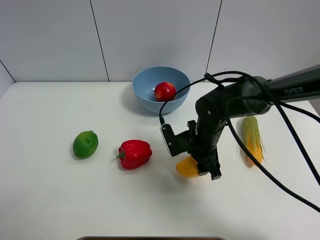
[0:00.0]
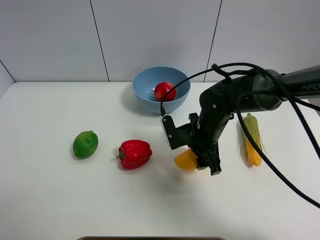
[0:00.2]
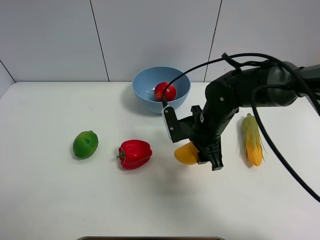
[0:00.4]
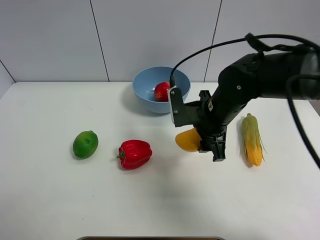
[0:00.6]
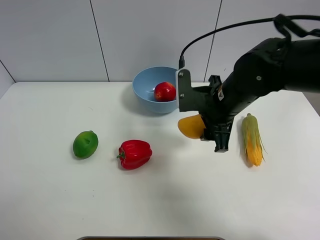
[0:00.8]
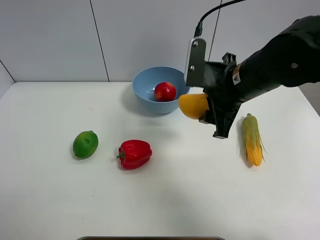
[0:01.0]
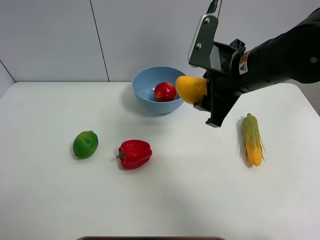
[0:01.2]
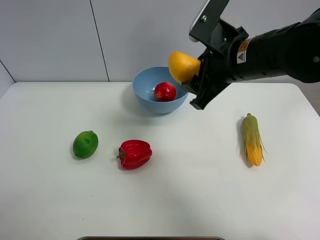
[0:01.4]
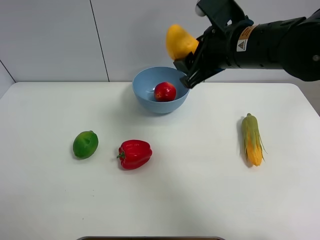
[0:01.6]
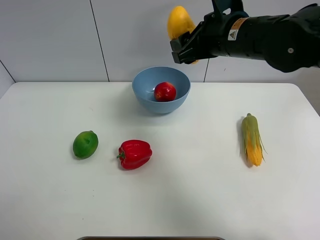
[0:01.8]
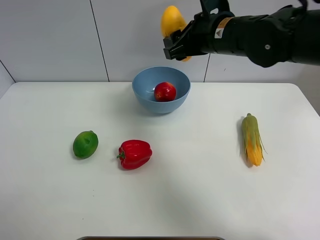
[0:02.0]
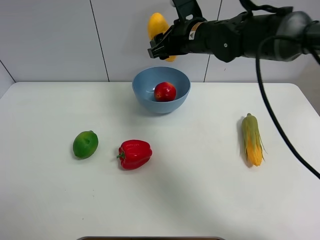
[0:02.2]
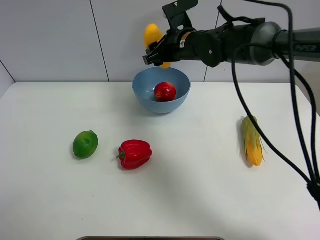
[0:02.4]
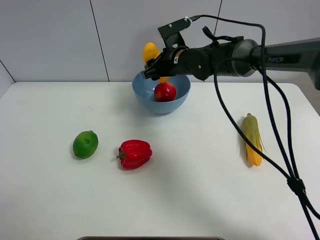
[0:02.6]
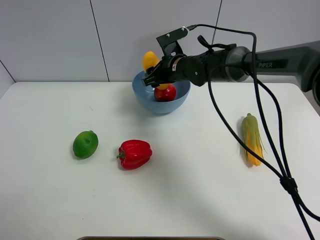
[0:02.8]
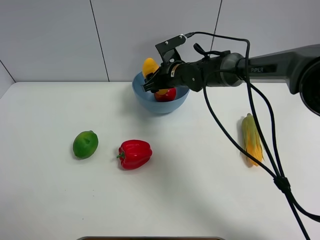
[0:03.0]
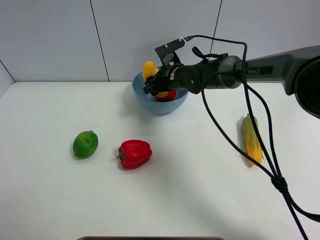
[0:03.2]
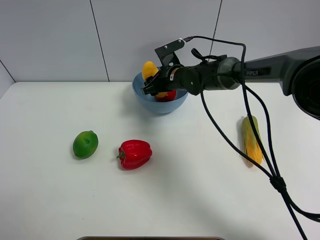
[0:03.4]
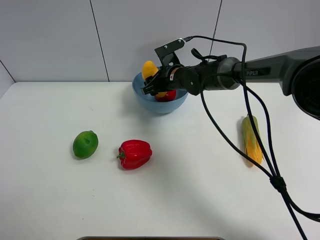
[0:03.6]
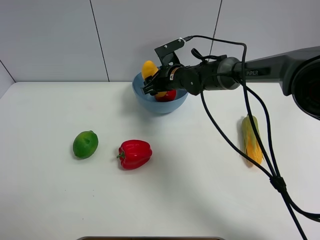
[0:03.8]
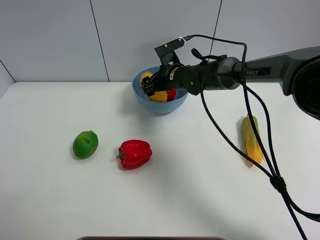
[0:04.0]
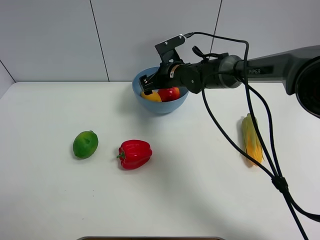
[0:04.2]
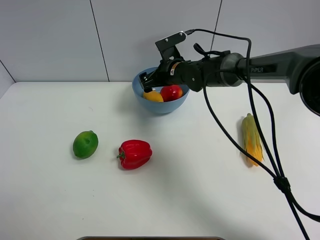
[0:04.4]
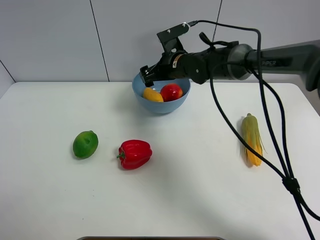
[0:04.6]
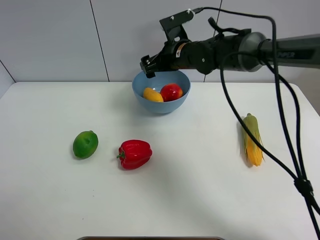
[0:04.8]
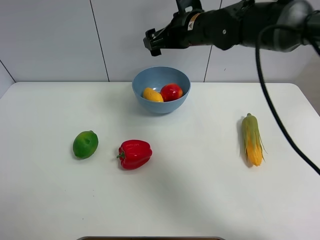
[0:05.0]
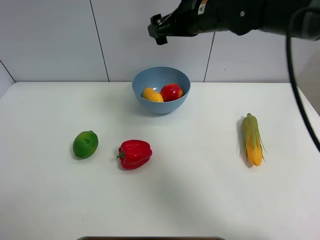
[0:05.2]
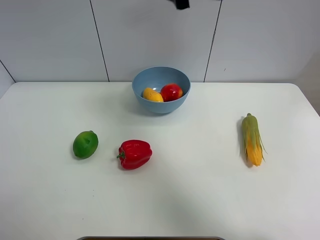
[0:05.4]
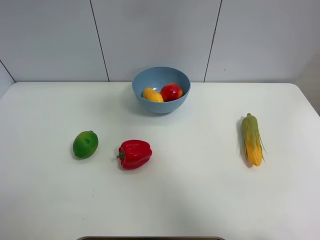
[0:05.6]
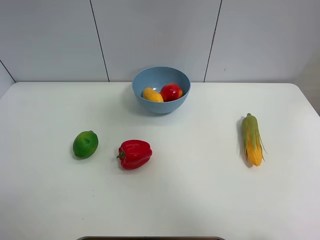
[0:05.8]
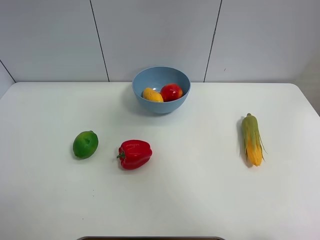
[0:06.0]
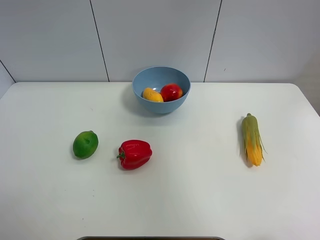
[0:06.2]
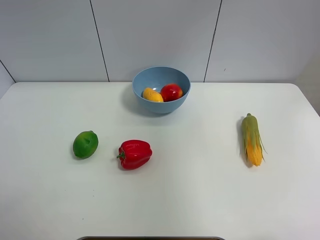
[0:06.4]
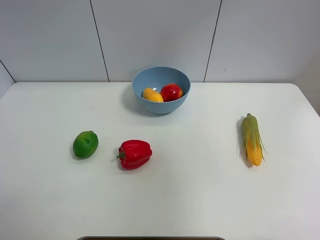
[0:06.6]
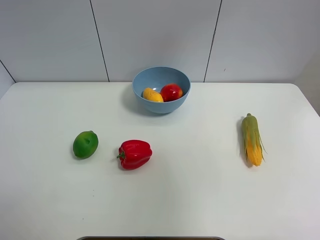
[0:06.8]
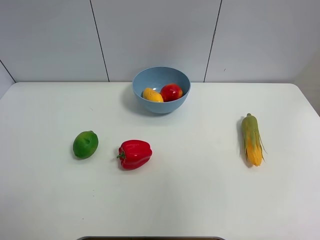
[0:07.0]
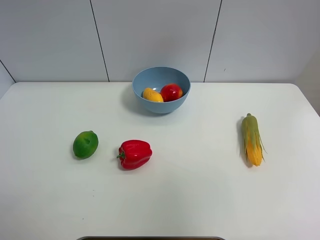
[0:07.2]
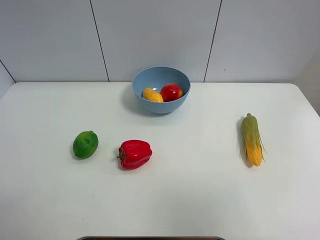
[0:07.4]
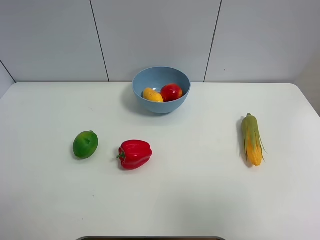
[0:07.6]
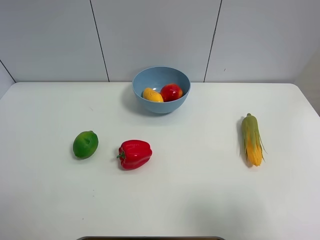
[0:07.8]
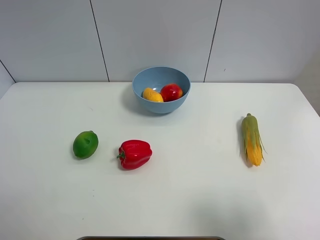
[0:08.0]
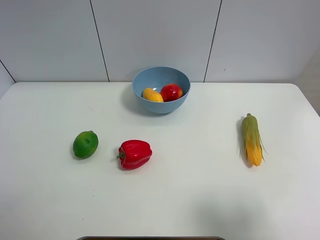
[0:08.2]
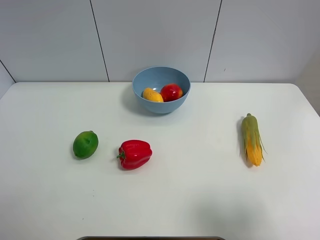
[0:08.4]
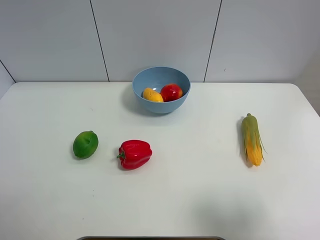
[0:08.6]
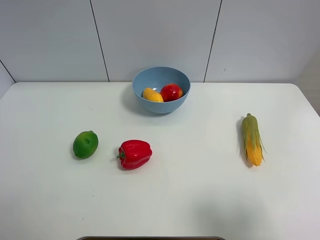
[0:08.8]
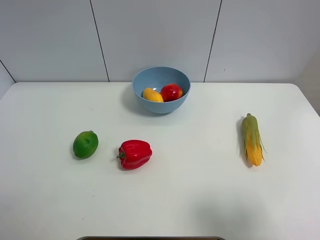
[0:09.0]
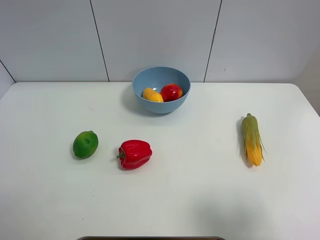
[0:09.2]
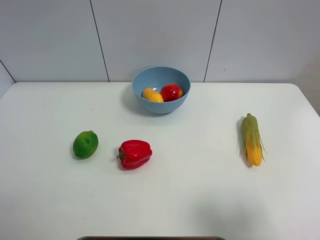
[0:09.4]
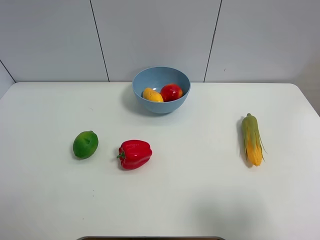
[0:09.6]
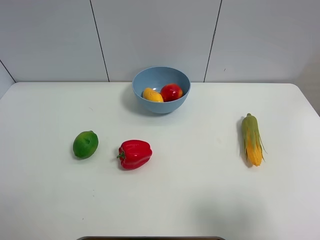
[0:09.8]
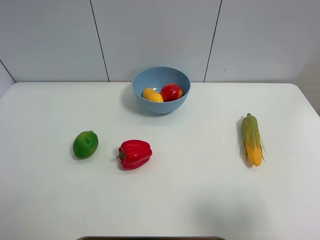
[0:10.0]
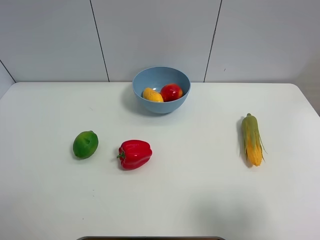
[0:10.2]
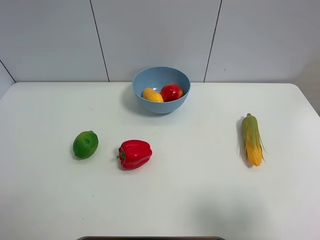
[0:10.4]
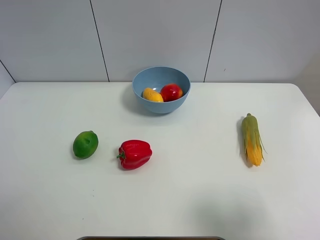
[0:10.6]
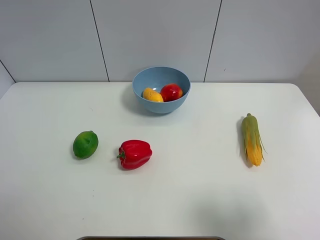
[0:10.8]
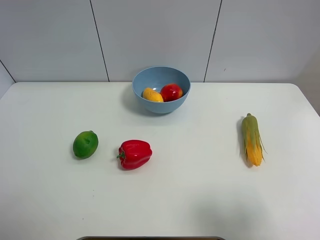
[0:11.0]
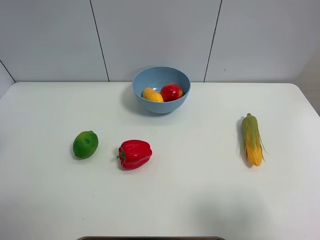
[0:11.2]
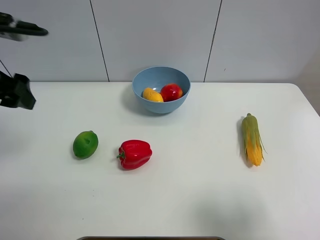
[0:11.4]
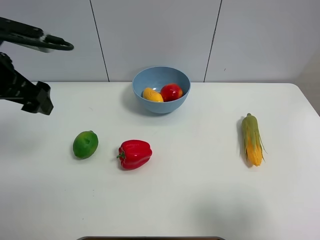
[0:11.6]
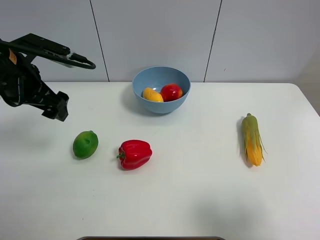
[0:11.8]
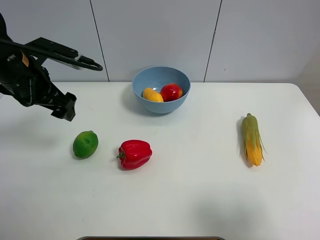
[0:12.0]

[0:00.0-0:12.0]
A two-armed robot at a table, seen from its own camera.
Task of the whole recording: Put the three fruits on the table into a bowl.
Step, 0:00.0 to 0:04.4: Place the mango in the blue bowl with right gripper.
0:00.0 to 0:01.6: The right gripper heads upward, covering approximately 20 cm.
0:01.6 to 0:03.0: The right gripper heads downward, forward and to the left, covering some 25 cm.
0:03.0 to 0:04.4: The right gripper opens its fingers.
0:04.4 to 0:06.0: The right gripper shifts approximately 40 cm upward, backward and to the right.
0:06.0 to 0:07.6: The right gripper heads backward, downward and to the right, covering some 25 cm.
0:07.6 to 0:09.0: The right gripper moves downward, some 10 cm.
0:10.4 to 0:12.0: The left gripper travels forward and to the right by some 30 cm.

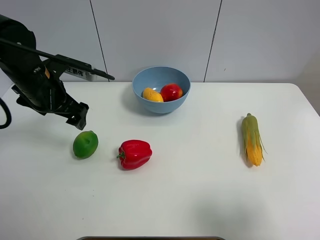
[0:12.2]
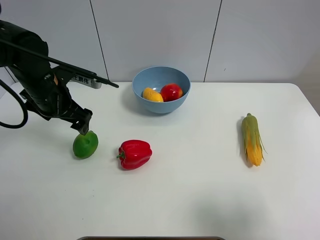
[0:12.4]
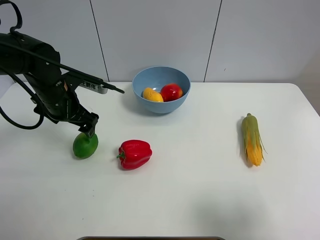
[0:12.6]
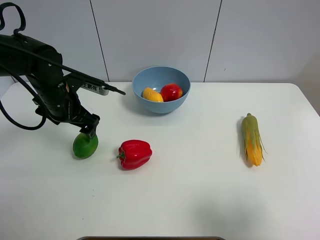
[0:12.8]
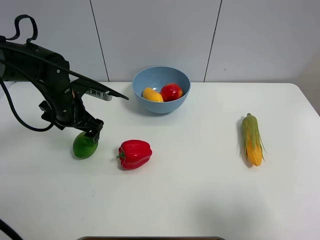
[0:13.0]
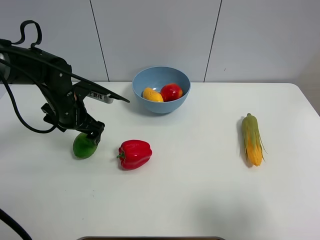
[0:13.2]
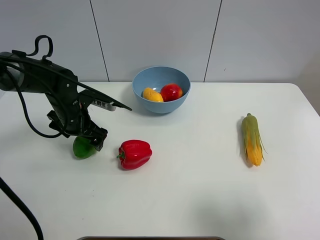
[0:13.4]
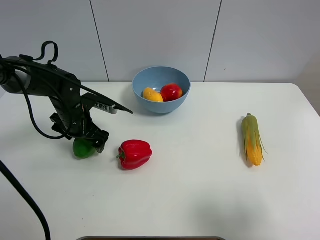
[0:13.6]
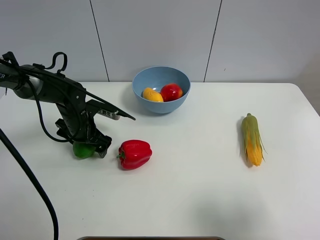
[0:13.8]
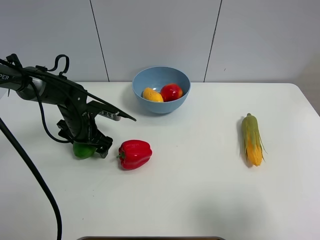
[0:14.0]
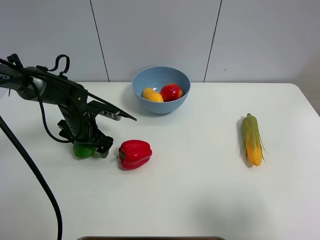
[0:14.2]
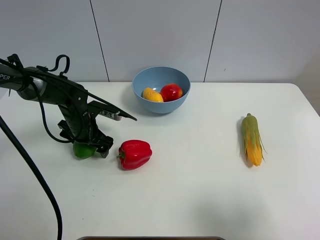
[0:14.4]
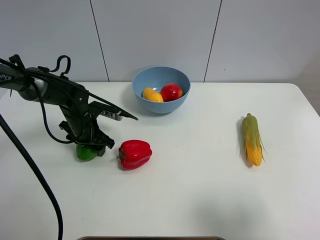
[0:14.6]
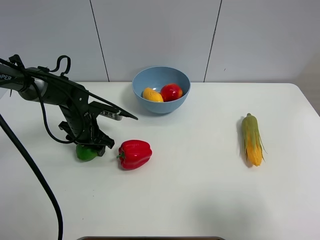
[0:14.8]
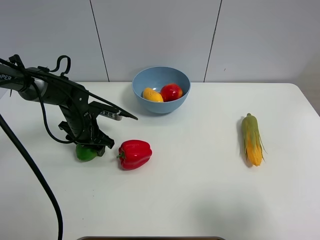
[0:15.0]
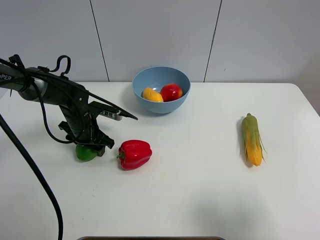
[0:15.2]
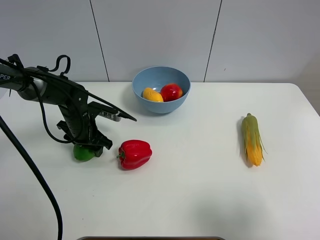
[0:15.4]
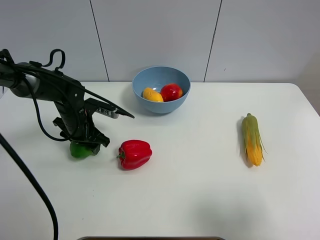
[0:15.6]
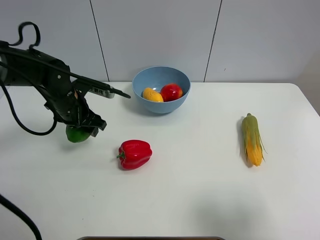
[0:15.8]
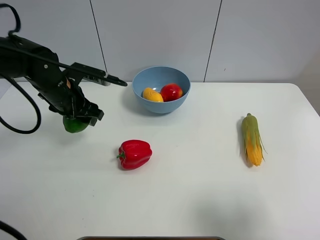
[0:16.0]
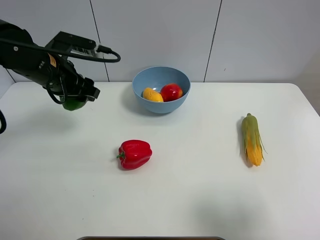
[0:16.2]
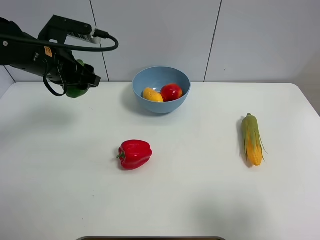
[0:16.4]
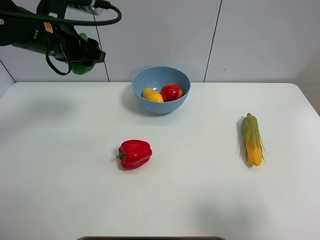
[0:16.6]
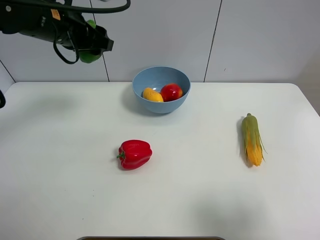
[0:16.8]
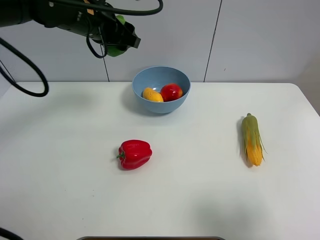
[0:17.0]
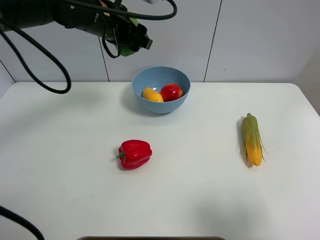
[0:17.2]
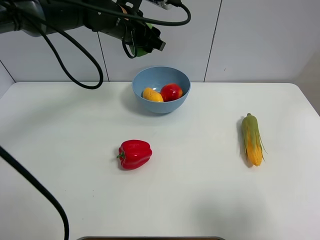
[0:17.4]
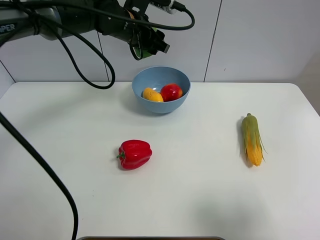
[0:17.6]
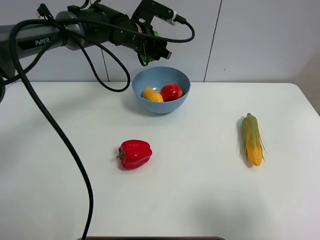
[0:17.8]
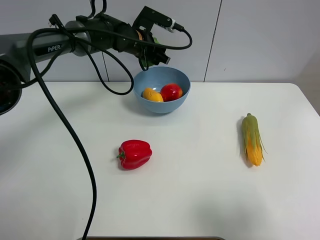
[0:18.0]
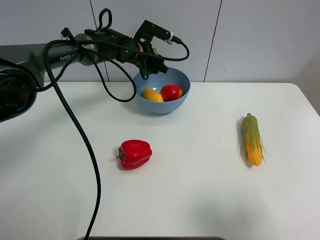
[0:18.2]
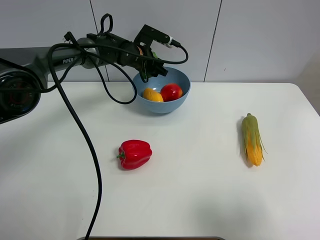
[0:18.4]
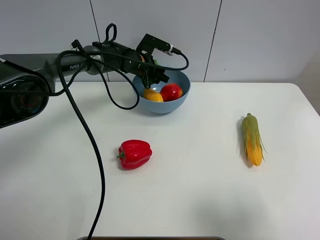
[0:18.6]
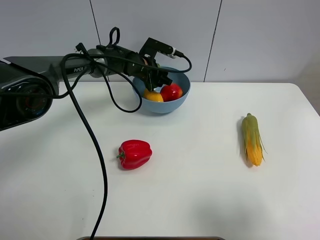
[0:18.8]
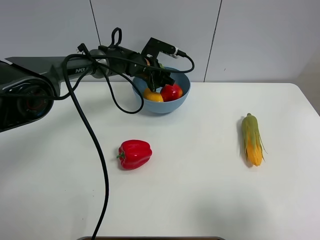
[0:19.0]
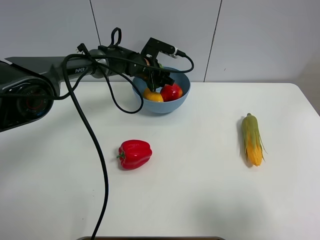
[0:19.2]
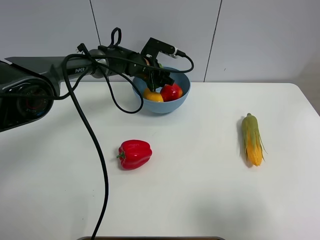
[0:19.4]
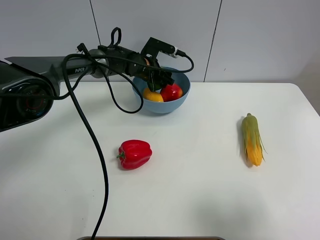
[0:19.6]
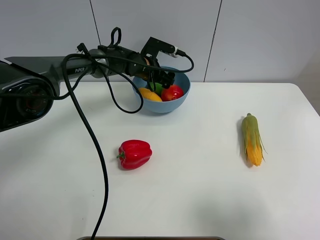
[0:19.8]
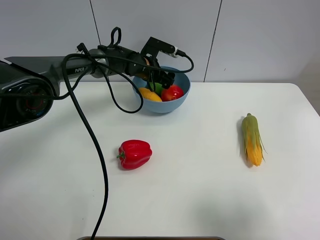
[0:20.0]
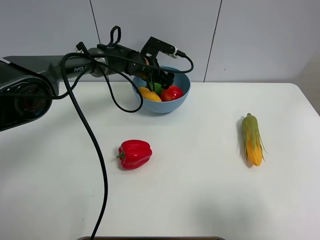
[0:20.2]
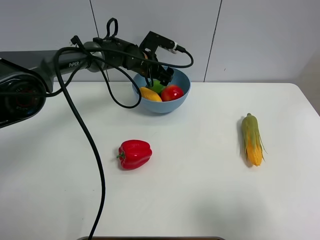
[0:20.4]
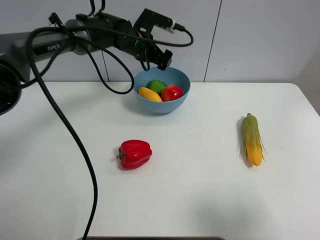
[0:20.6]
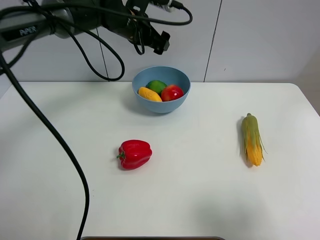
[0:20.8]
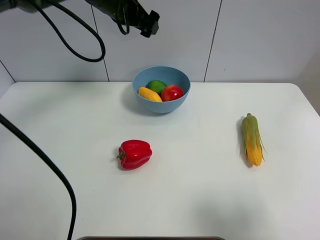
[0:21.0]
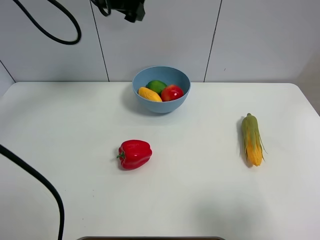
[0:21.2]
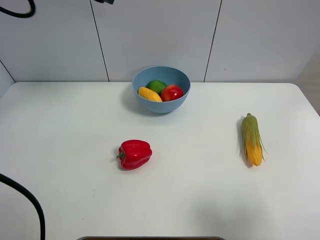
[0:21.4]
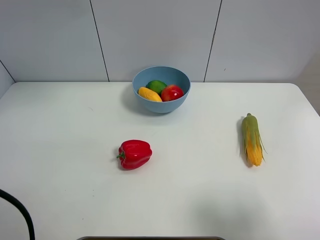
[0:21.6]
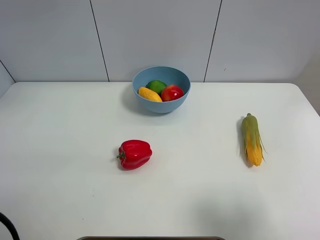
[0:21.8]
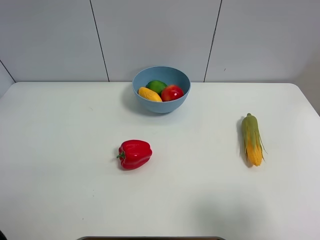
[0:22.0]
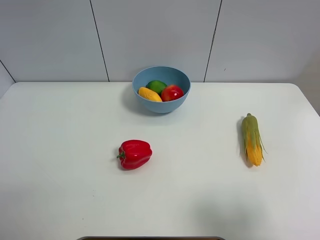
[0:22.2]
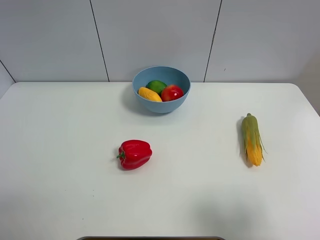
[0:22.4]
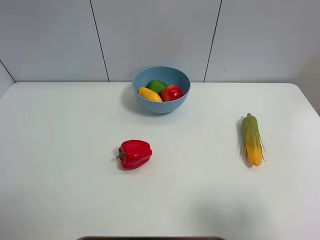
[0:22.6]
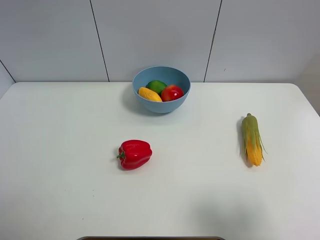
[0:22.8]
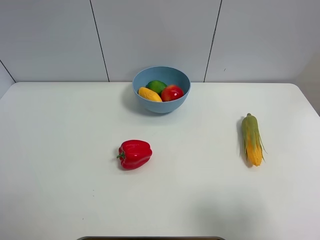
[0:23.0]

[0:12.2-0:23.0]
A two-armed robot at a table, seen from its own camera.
Task of the whole recording: Put the three fruits on the table into a bowl.
Step, 0:12.2 to 0:14.4: Grasp the green lemon with left gripper.
Step, 0:14.6 to 0:20.4: Place the green lemon in the blue bowl with left gripper.
0:12.2 to 0:13.8: The left gripper travels downward by approximately 15 cm.
0:13.8 to 0:15.2: The left gripper closes.
0:15.2 to 0:16.8: The left gripper heads upward, covering approximately 25 cm.
0:16.8 to 0:18.4: The left gripper moves downward, forward and to the right, some 25 cm.
0:18.4 to 0:20.0: The left gripper opens its fingers.
0:20.0 to 0:21.4: The left gripper moves upward and to the left, about 30 cm.
0:21.4 to 0:23.0: The left gripper travels backward and to the left by about 30 cm.
